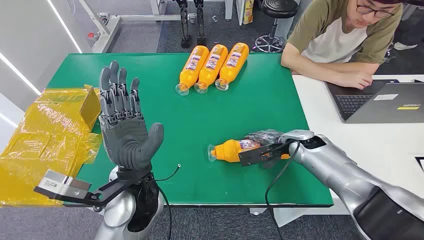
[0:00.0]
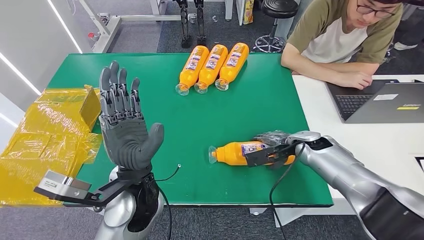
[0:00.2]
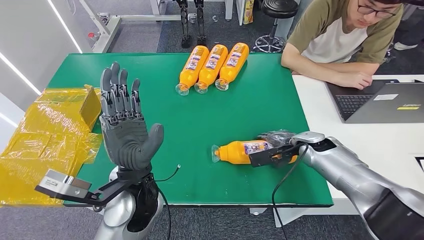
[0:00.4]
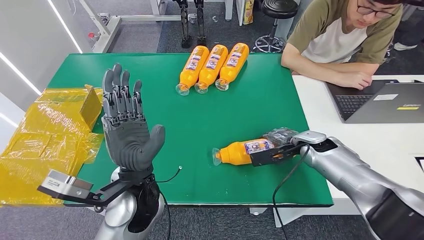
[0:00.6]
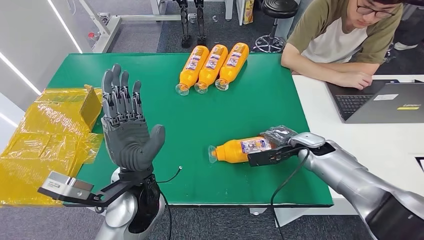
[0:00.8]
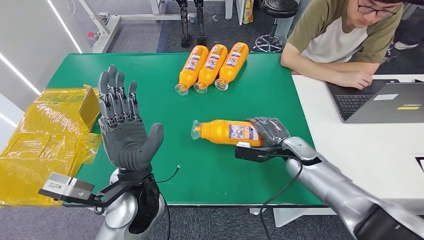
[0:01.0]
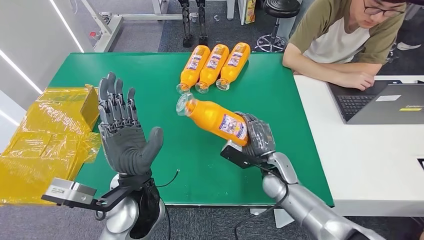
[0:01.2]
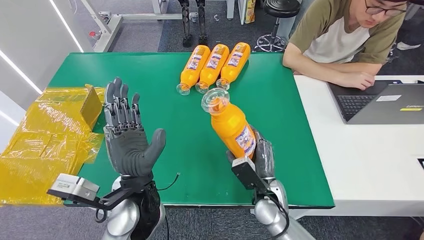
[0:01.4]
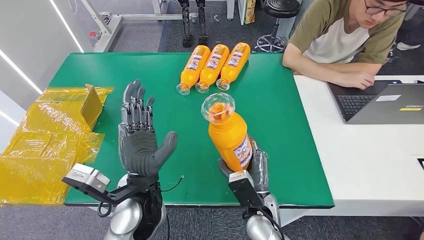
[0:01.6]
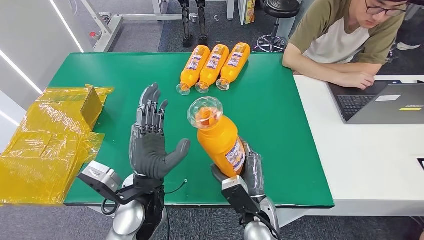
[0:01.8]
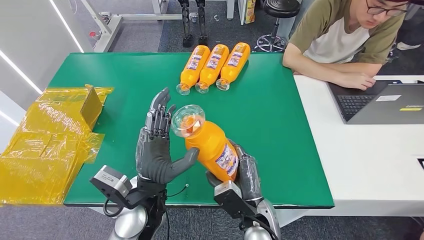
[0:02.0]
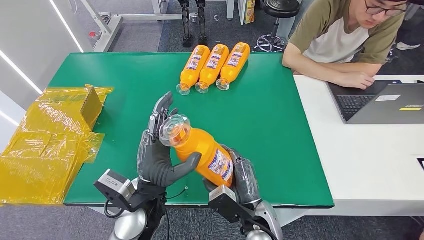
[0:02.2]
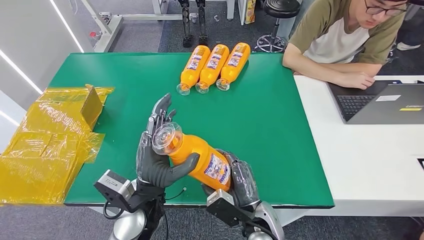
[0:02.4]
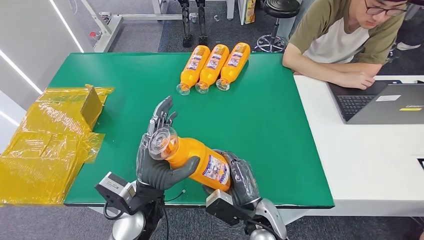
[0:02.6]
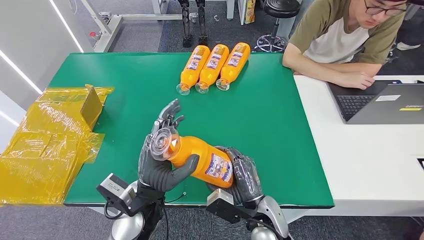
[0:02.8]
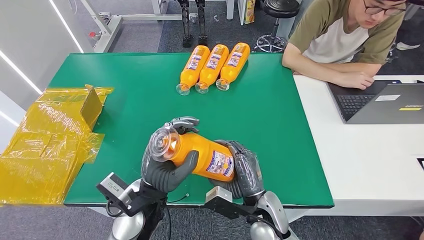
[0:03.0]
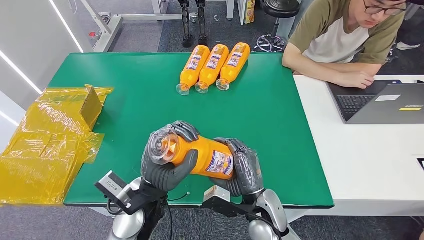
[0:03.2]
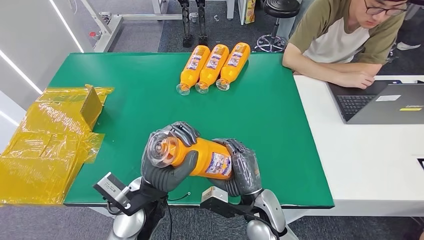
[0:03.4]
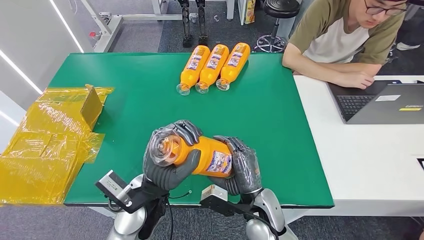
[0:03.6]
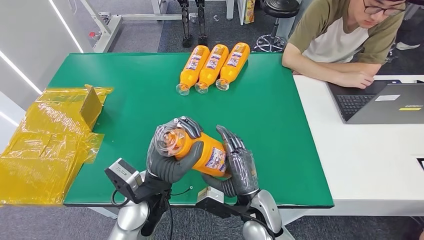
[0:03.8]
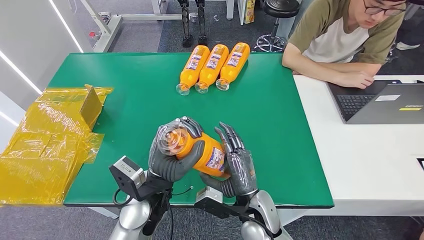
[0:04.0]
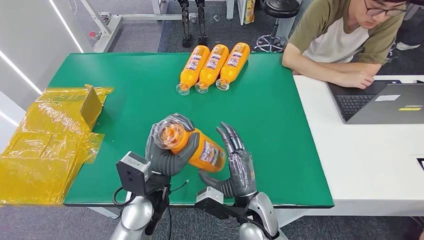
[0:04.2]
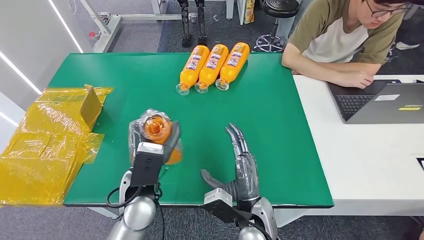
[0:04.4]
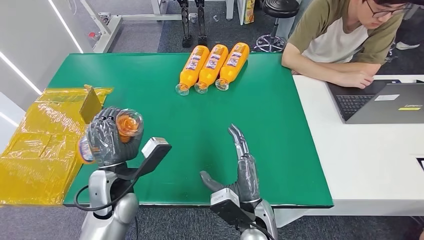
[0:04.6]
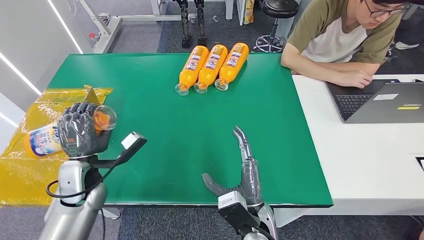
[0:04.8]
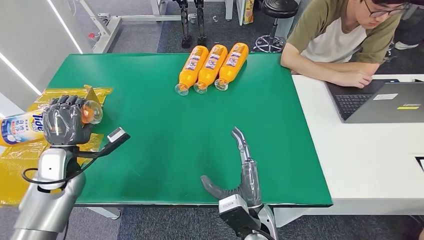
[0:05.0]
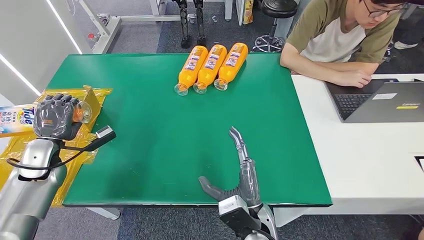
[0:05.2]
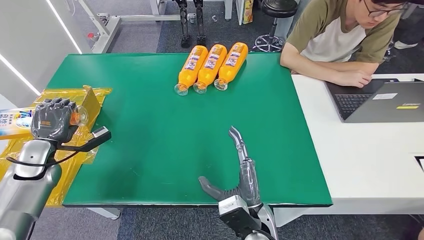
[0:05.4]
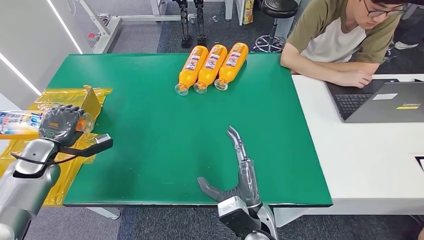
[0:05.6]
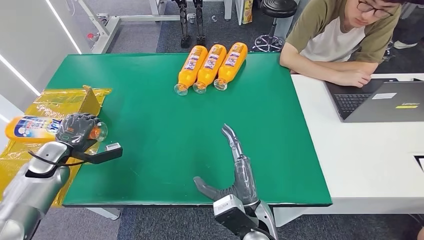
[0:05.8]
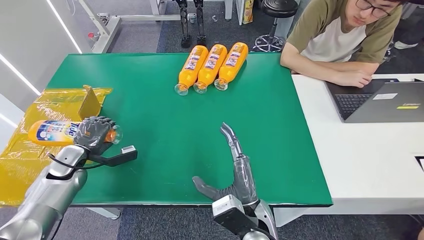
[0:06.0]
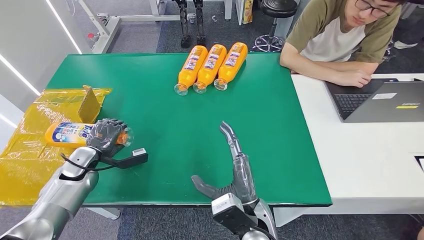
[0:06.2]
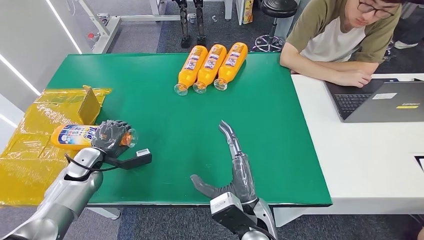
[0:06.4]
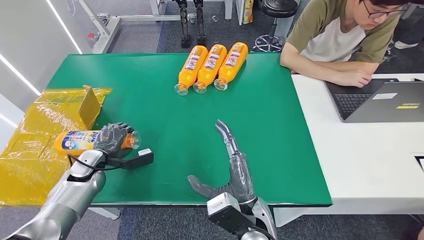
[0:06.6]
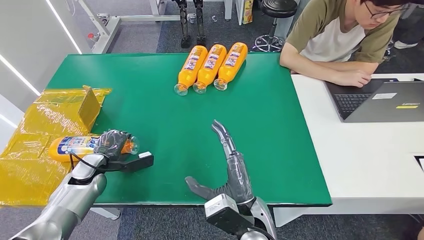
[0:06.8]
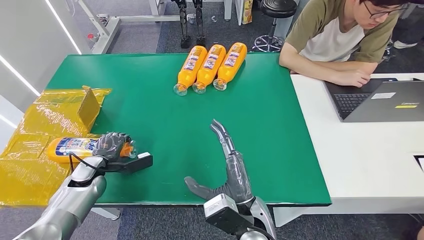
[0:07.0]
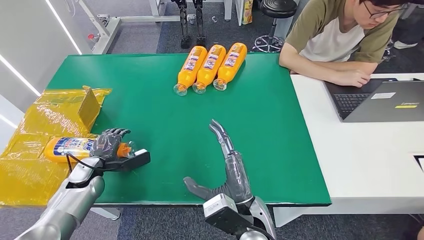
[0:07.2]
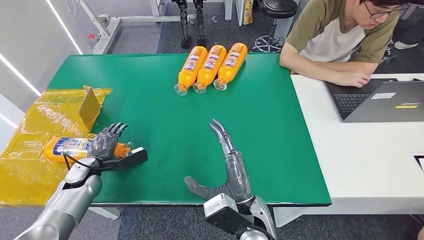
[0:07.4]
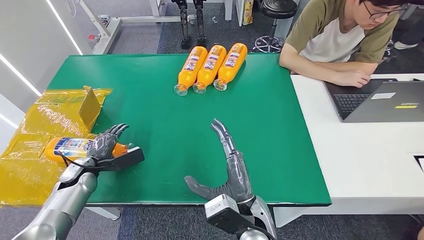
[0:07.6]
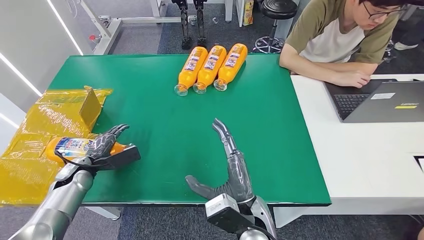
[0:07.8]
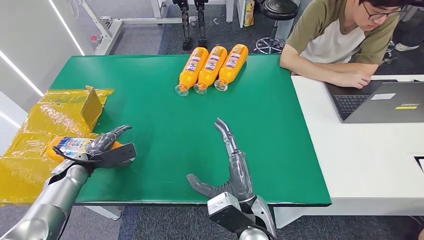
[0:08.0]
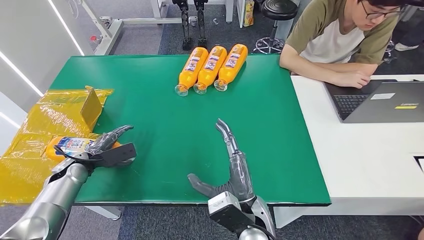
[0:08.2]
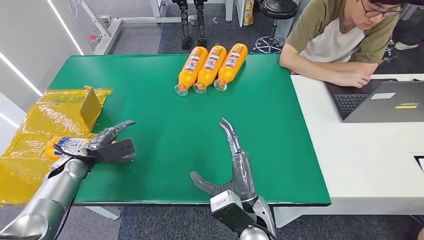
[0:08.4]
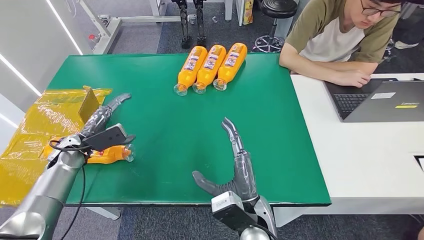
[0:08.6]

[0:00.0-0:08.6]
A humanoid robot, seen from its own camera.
Step, 0:00.0 to 0:02.2: Pick up the bottle from the table.
Step, 0:02.6 to 0:08.6: Turn the bottle to the front side.
0:01.4 to 0:02.8: The right hand shifts roughly 5 cm backward.
0:05.8 to 0:07.2: The left hand shifts approximately 10 cm to the right and downward.
0:07.2 to 0:08.6: The left hand travels upward by roughly 5 cm.

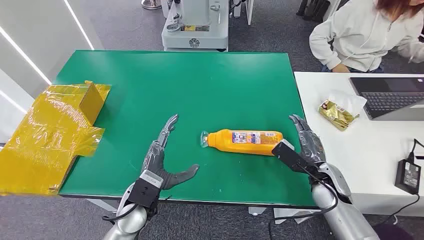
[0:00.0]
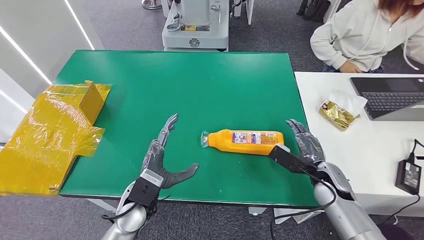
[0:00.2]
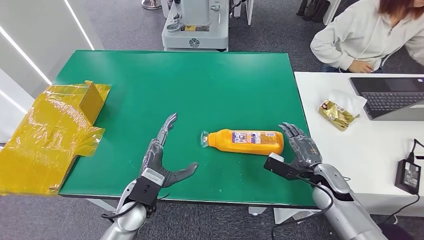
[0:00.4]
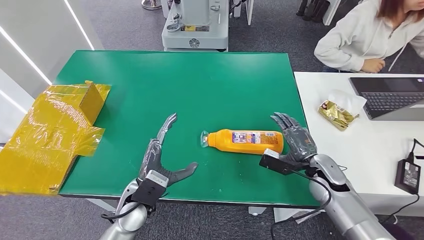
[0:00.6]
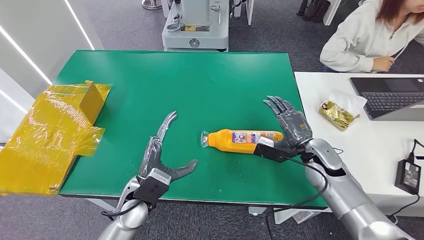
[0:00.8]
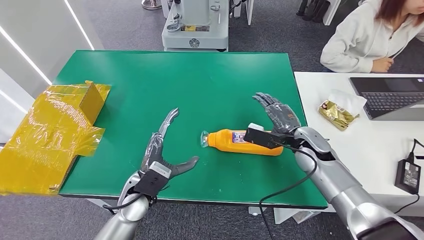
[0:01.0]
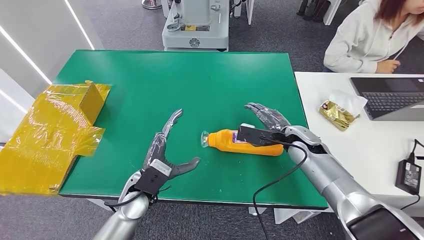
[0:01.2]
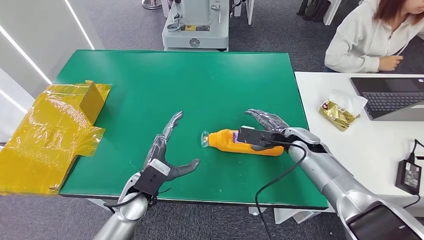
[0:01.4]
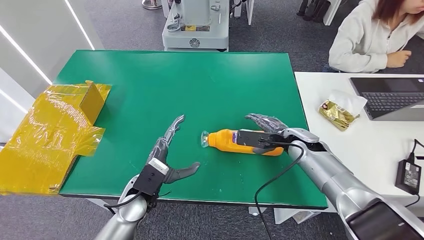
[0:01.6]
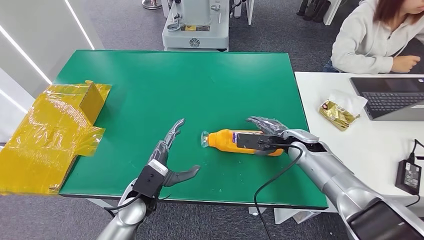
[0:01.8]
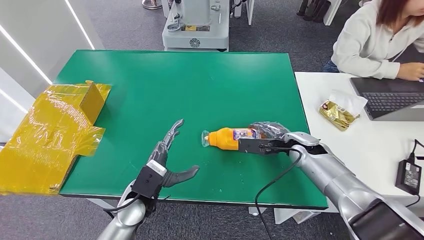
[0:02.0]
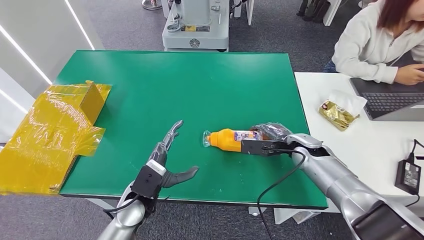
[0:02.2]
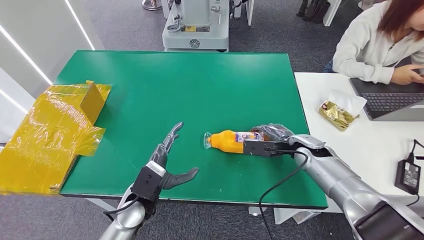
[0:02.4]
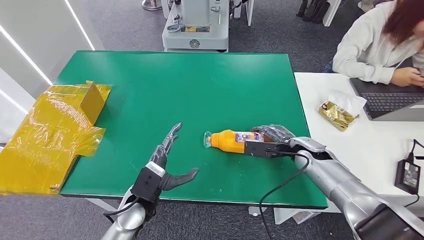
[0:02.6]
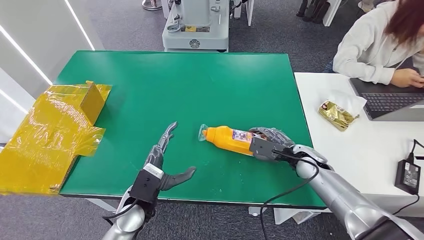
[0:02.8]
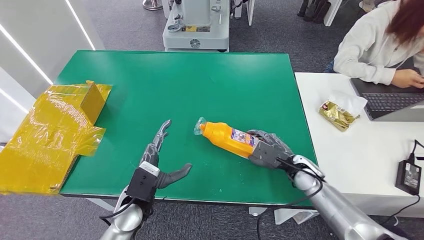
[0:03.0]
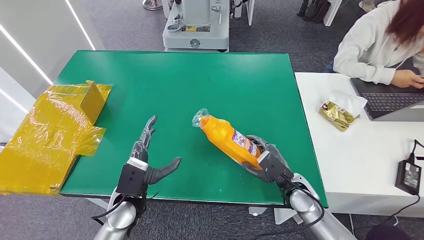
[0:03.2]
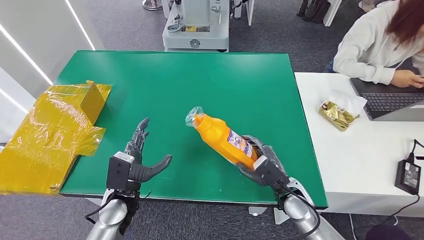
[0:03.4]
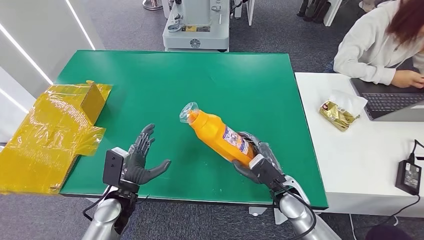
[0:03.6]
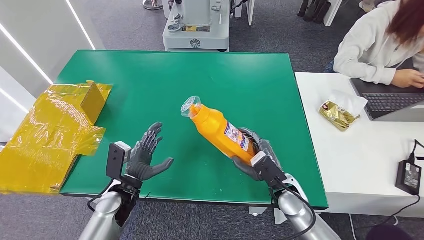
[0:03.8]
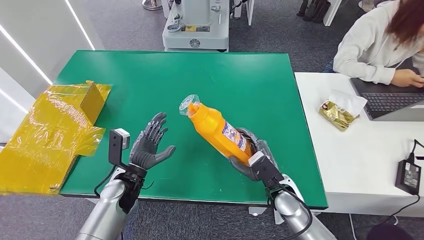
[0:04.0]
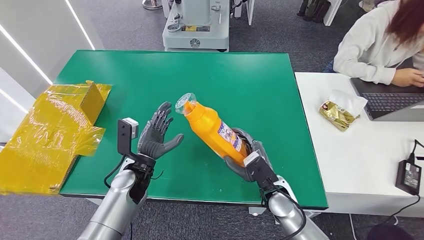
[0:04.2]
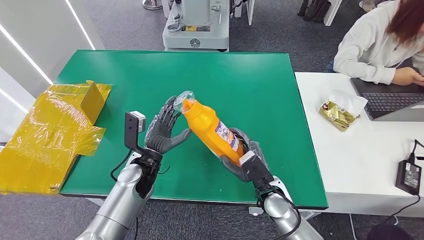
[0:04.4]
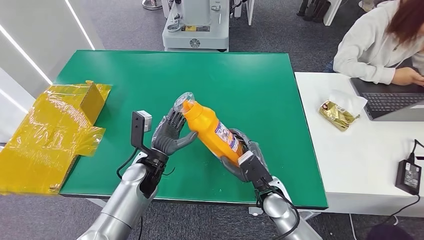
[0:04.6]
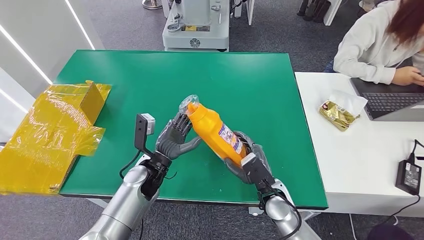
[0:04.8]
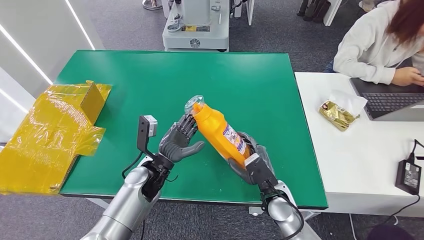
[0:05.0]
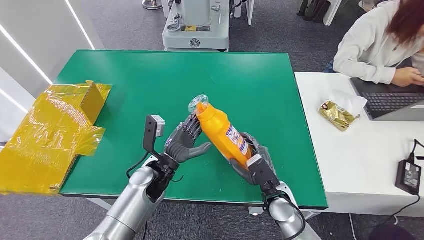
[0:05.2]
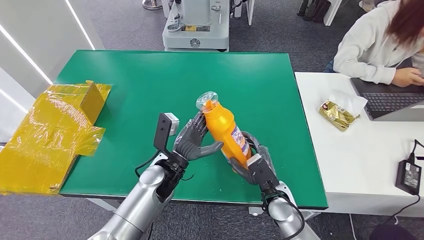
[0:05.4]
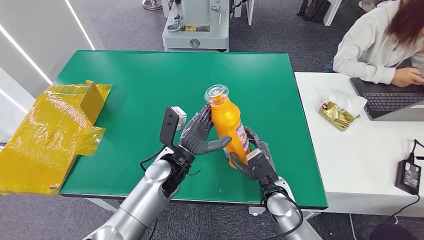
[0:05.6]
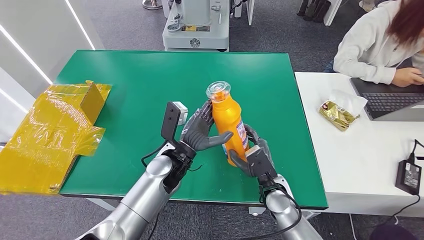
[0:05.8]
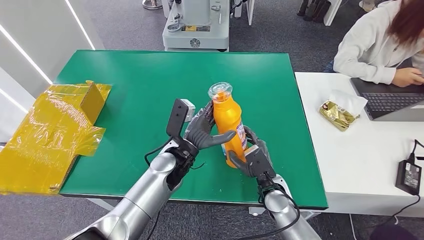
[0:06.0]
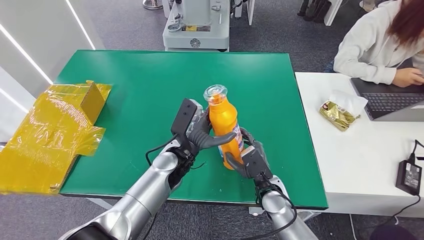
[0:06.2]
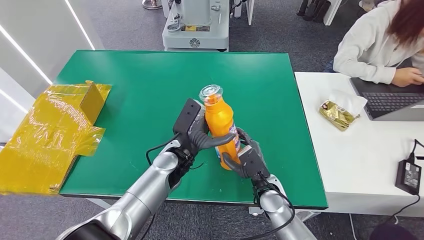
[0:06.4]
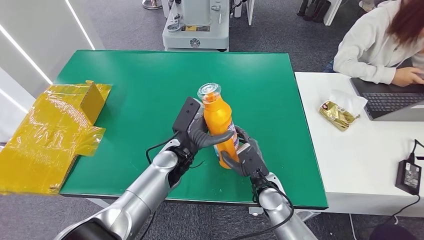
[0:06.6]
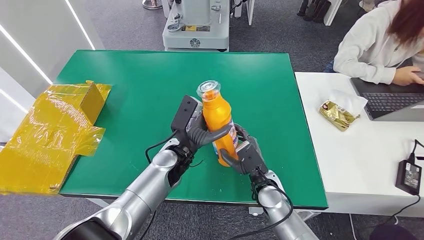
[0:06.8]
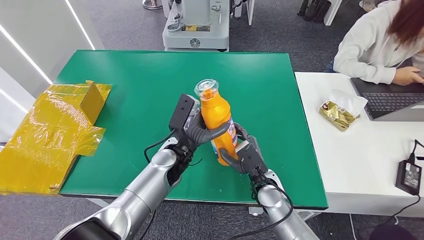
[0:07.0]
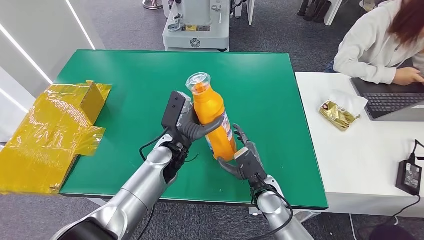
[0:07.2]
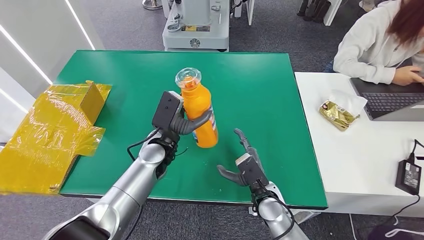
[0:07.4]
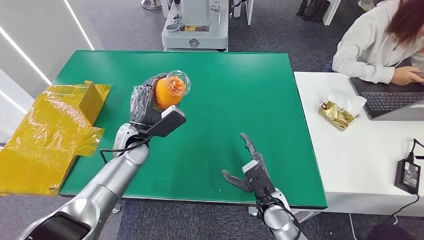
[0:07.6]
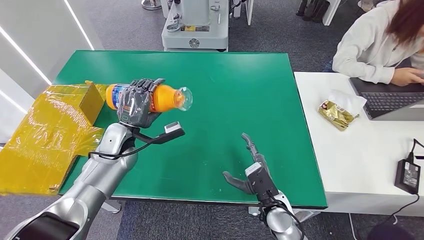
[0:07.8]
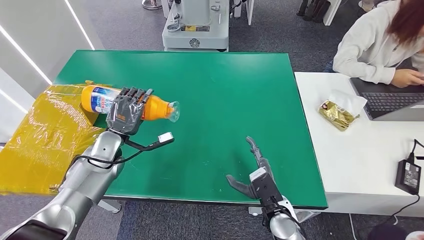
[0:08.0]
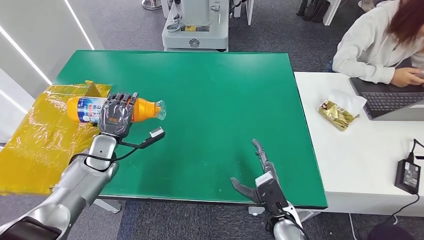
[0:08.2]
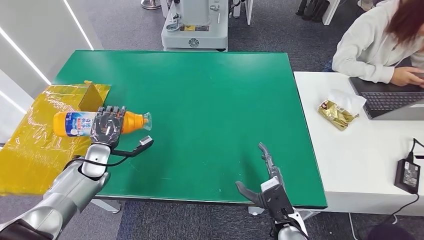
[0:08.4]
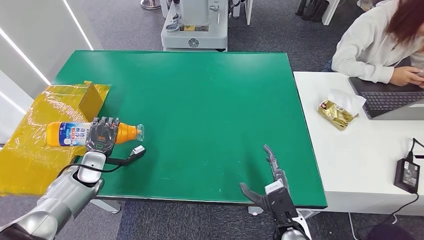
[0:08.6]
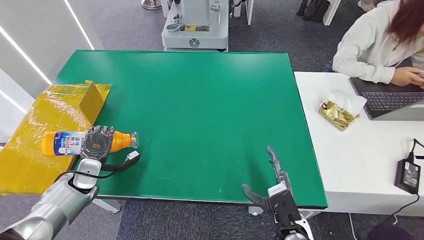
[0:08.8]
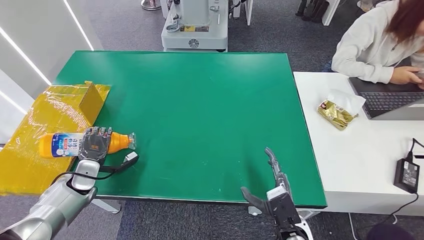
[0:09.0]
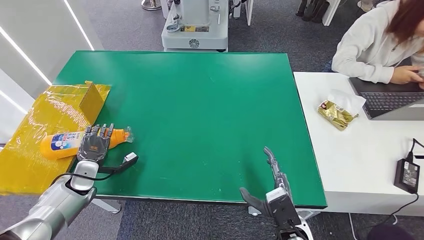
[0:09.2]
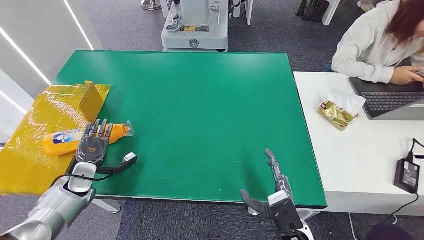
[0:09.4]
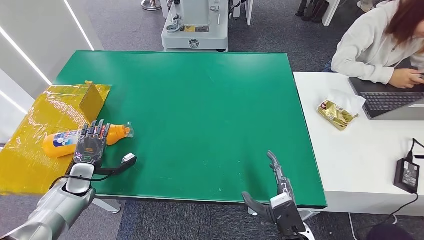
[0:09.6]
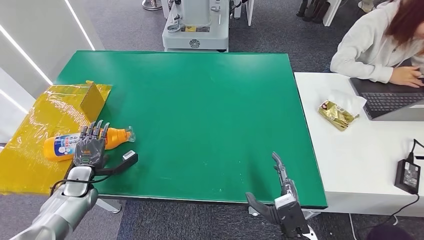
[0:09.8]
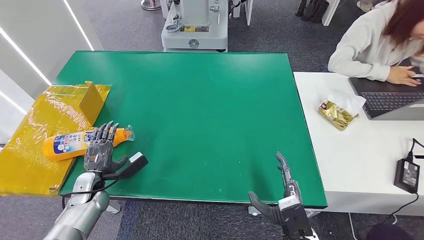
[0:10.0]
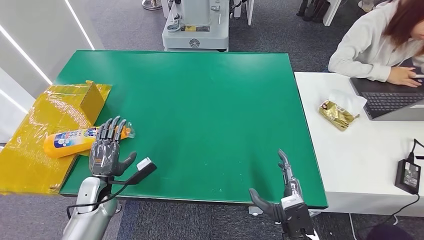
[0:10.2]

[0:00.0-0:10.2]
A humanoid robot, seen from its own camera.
Step, 0:00.0 to 0:04.0: Pick up the bottle from the table.
0:01.4 to 0:03.0: The right hand goes roughly 10 cm downward and backward.
0:03.0 to 0:04.4: The right hand is displaced to the left and backward by about 10 cm, while the left hand moves forward, about 10 cm.
0:04.4 to 0:05.8: The left hand shifts approximately 10 cm to the right.
0:05.8 to 0:07.2: There are only small adjustments of the hands.
0:08.8 to 0:10.2: The left hand is displaced to the right and backward by some 10 cm.
